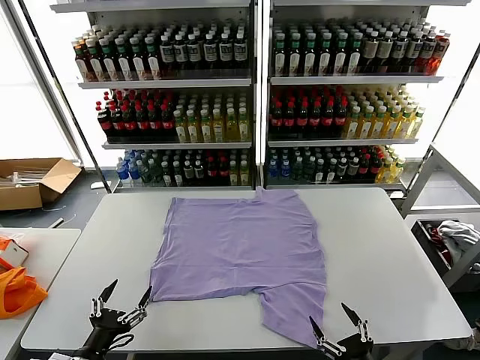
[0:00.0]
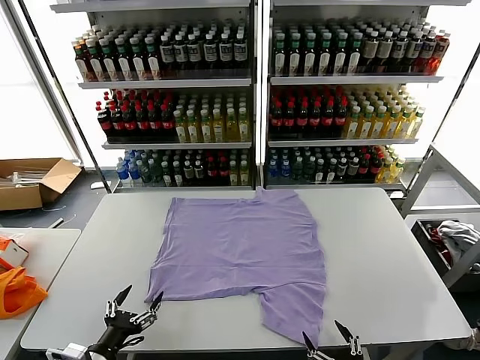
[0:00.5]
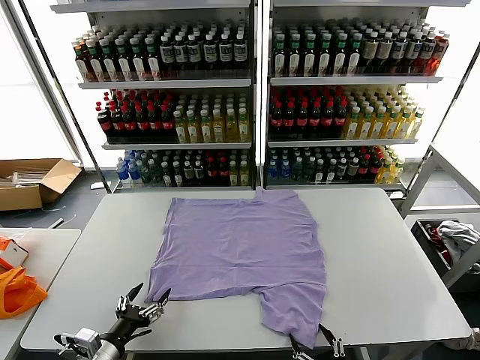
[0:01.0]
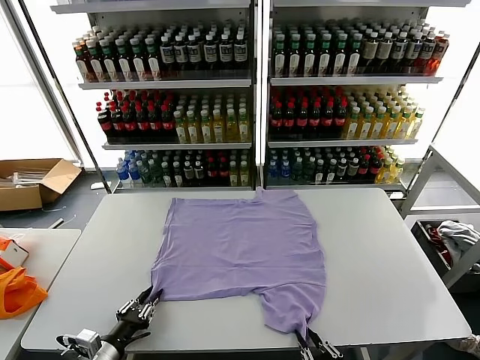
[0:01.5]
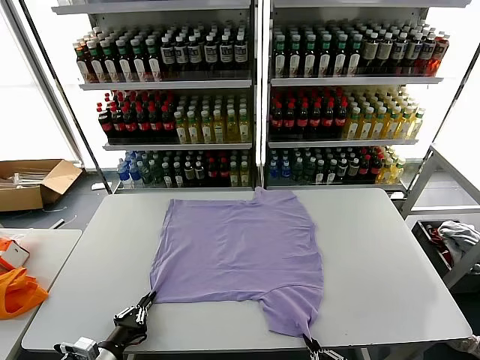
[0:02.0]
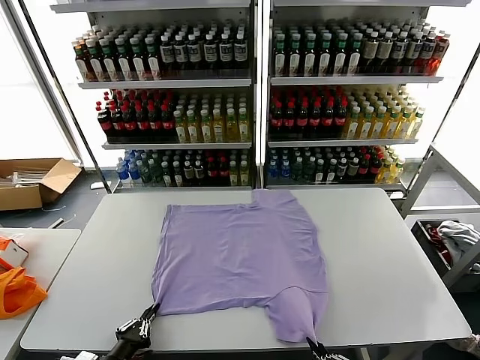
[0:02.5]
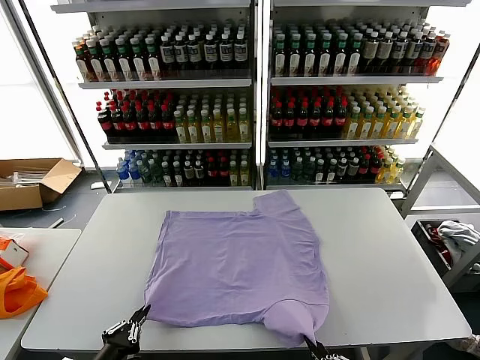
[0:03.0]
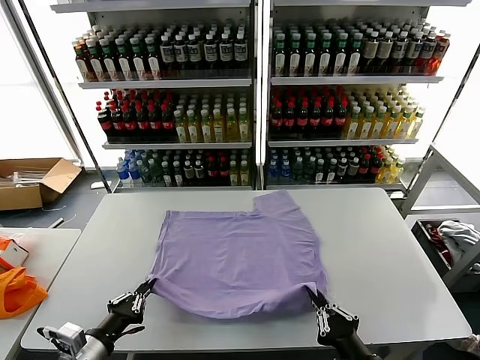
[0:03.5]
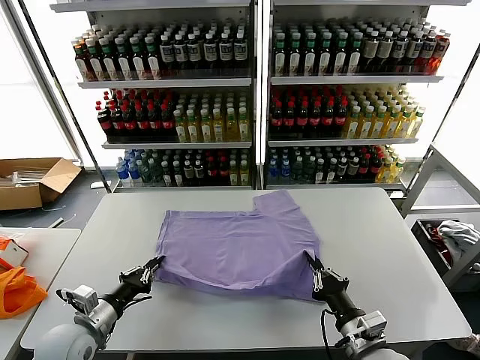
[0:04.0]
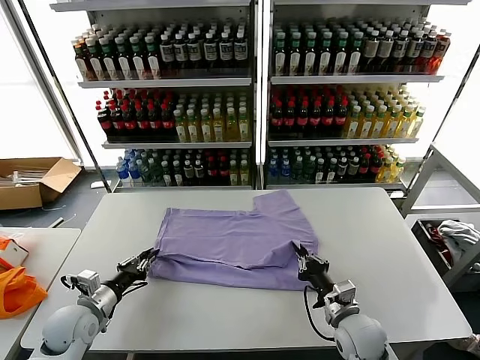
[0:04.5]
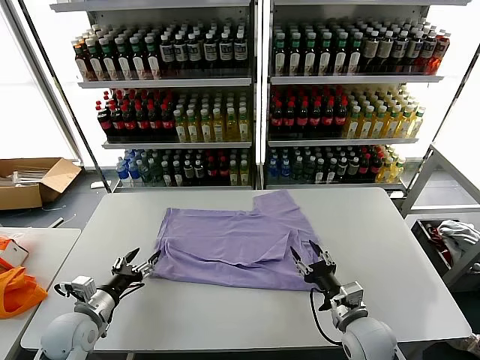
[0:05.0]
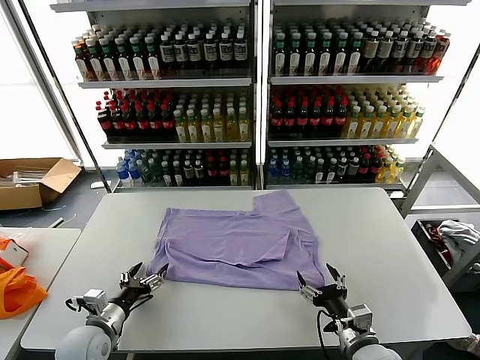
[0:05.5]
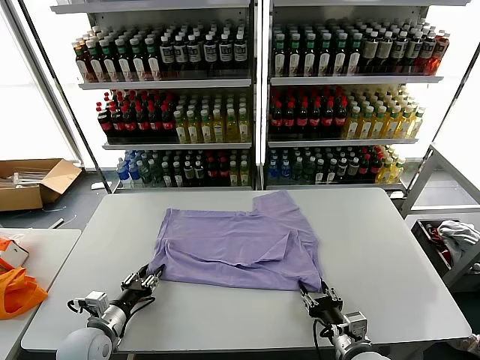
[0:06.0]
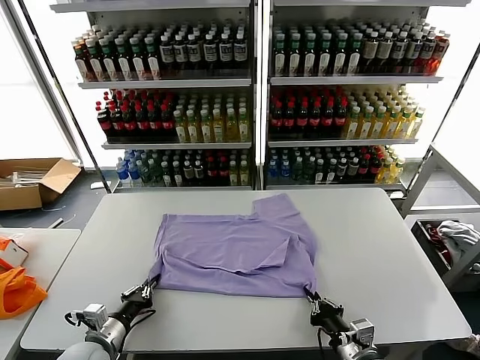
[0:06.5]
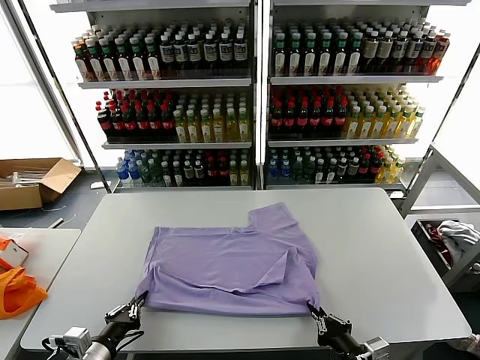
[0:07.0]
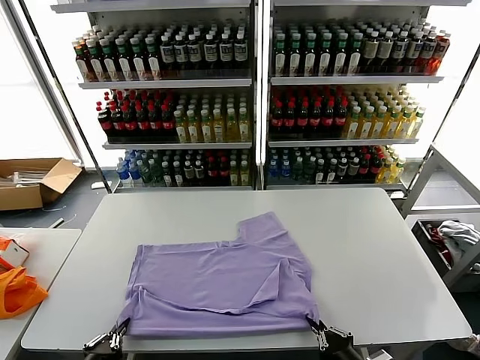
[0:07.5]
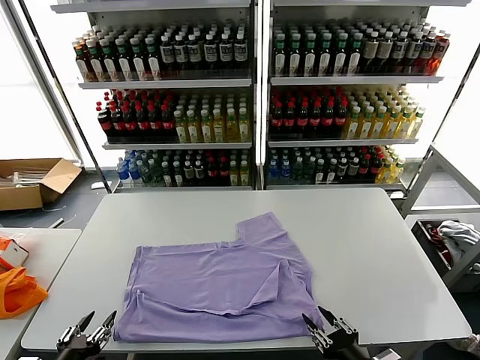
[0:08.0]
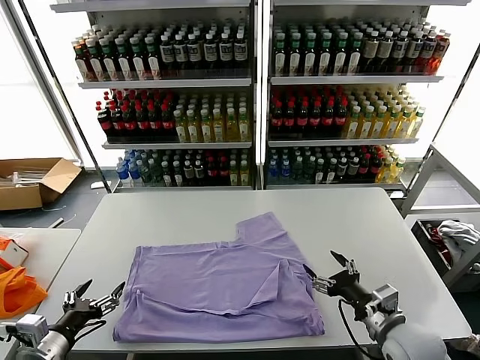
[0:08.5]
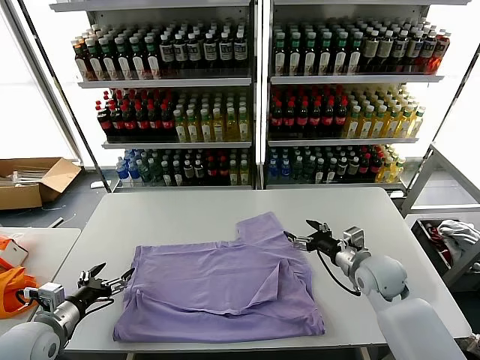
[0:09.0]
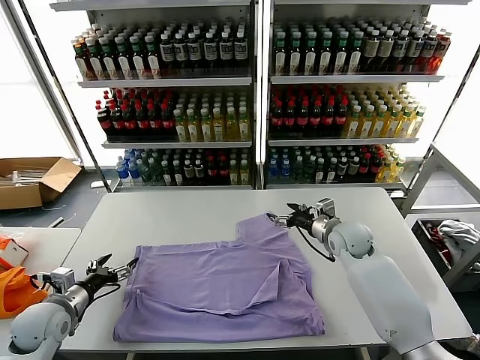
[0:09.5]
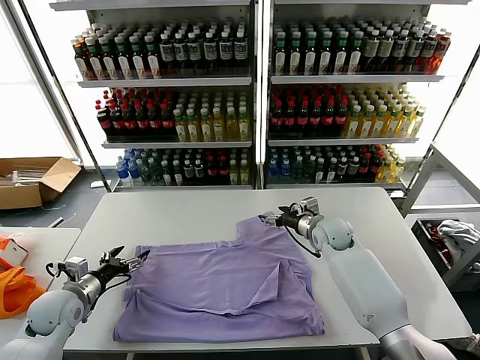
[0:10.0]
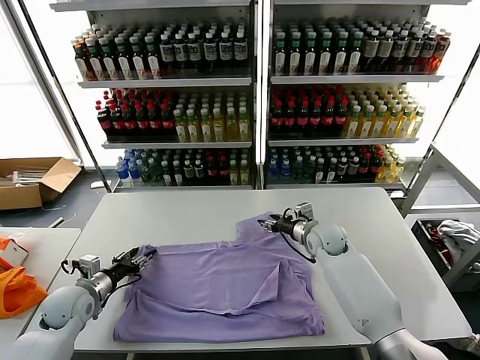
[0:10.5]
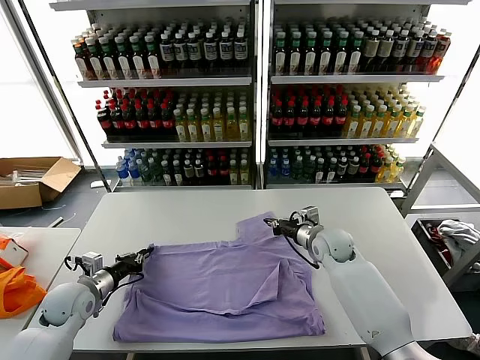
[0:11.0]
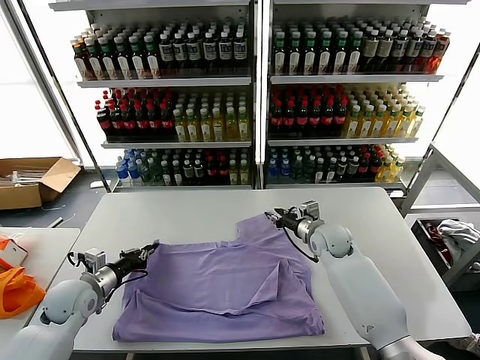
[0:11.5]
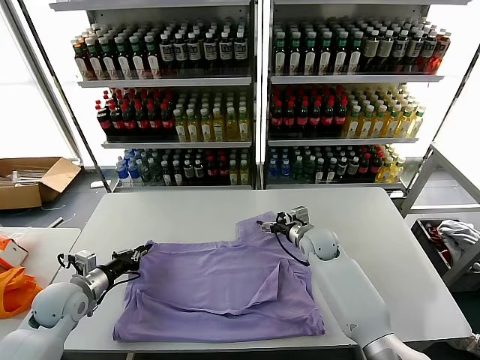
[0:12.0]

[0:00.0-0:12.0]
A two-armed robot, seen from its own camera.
Task of the whole recording: fold and organize the clothes.
Step, 0:00.0 to 0:01.5: use both grippers simultaneously to clamp the lower edge of the clothing fabric.
Step, 0:02.0 to 0:04.5: use both grippers to drag the lower edge of the fabric forward and fold it over the upper edge.
Step, 0:05.0 to 0:08.0: Drag the clothes downward with both gripper.
0:02.0 to 0:04.0: The right gripper travels forward by some 15 cm. Meanwhile the left gripper is displaced forward and upward by approximately 10 cm.
0:04.0 to 0:06.0: The right gripper goes forward and returns, roughly 5 cm each way, and opens its fingers; the left gripper is displaced downward by some 5 cm, and opens its fingers.
0:06.0 to 0:08.0: The right gripper goes some 10 cm backward and upward, and closes and opens again; the left gripper is displaced backward and upward by about 20 cm, and closes, then reopens.
0:08.0 to 0:10.0: The left gripper travels forward by about 20 cm, while the right gripper heads forward, covering about 40 cm, and opens up.
0:10.0 to 0:12.0: The left gripper closes its fingers, while the right gripper closes, then opens again.

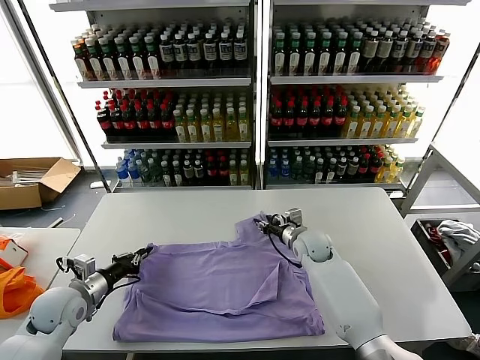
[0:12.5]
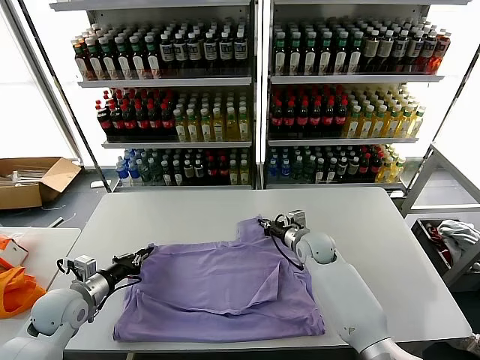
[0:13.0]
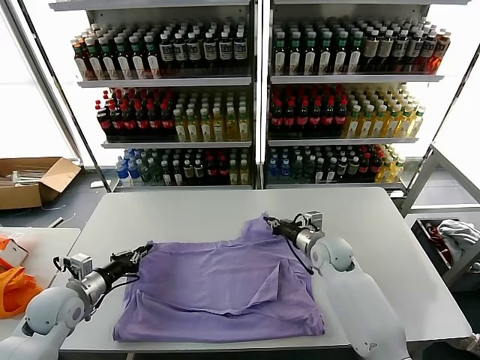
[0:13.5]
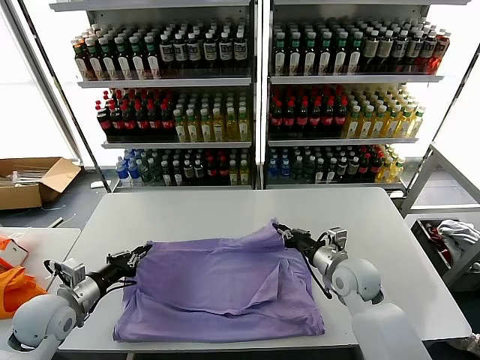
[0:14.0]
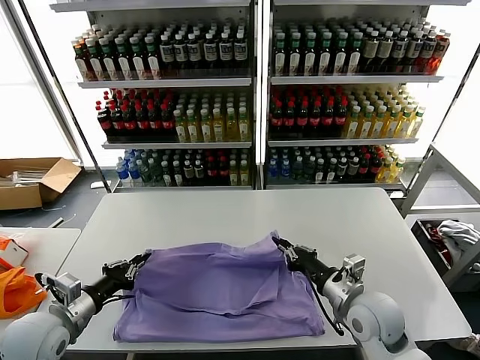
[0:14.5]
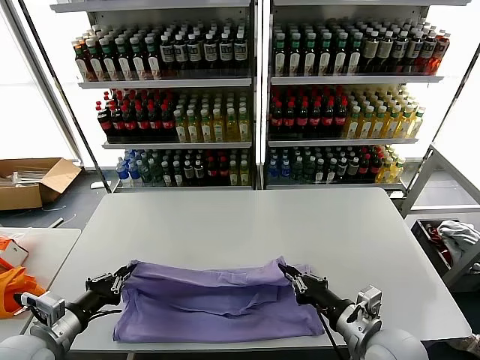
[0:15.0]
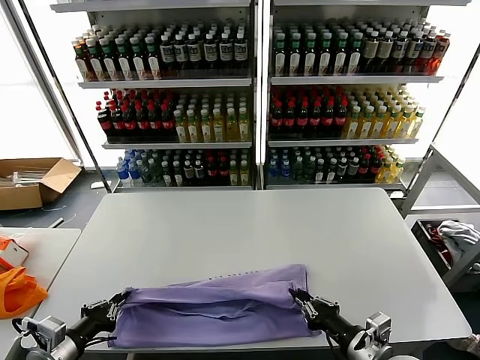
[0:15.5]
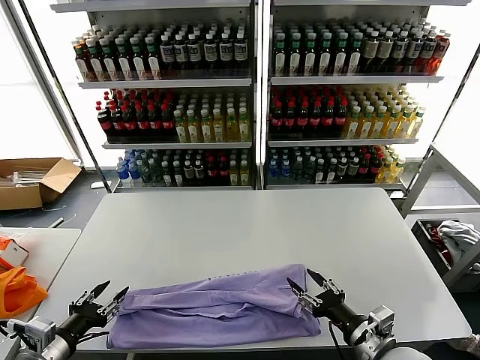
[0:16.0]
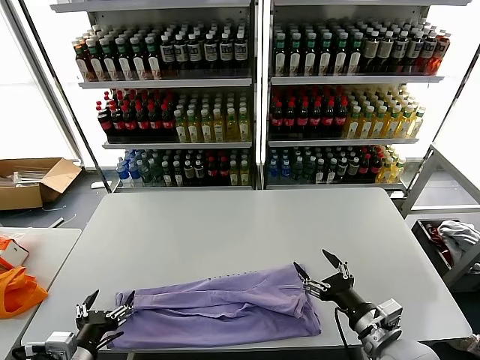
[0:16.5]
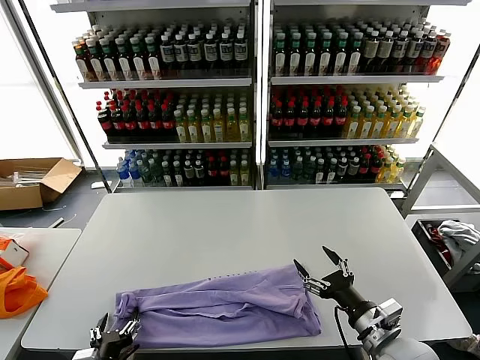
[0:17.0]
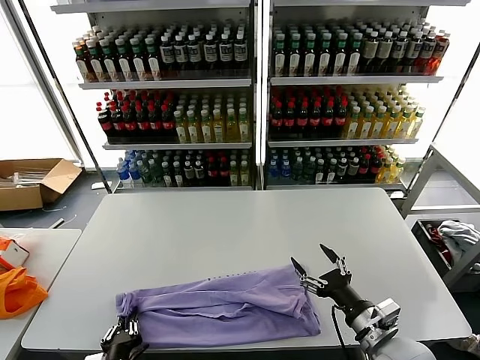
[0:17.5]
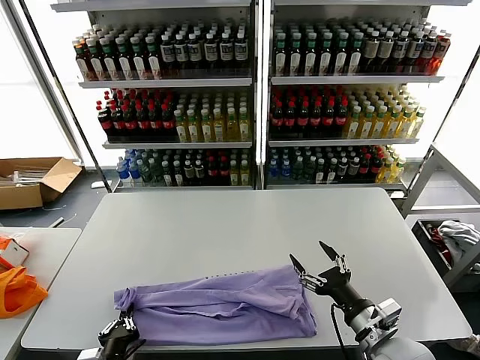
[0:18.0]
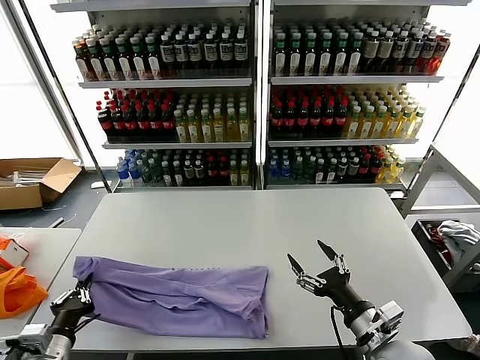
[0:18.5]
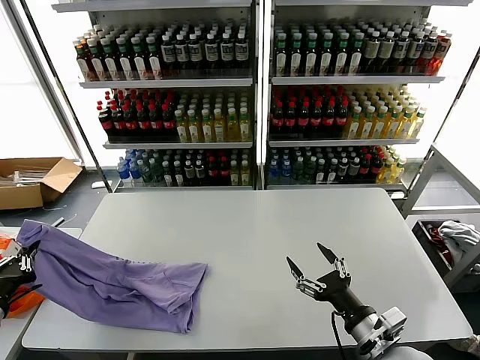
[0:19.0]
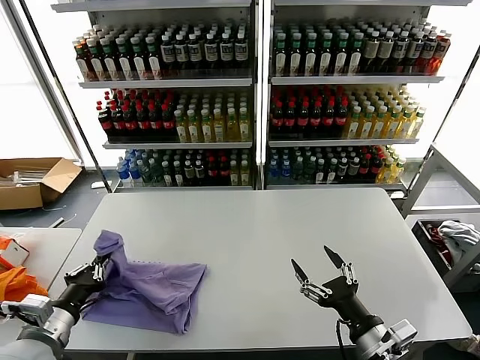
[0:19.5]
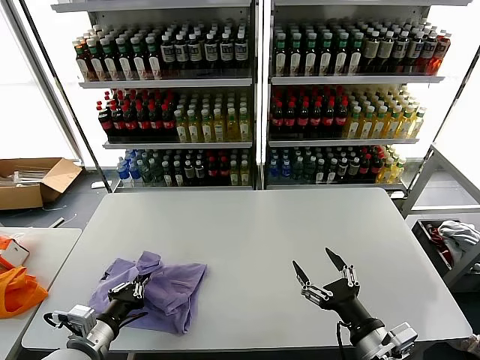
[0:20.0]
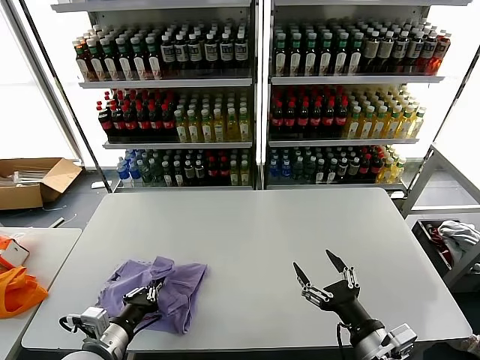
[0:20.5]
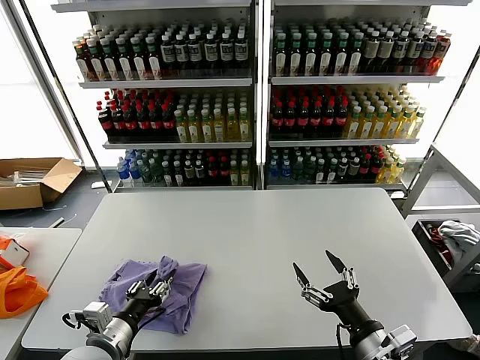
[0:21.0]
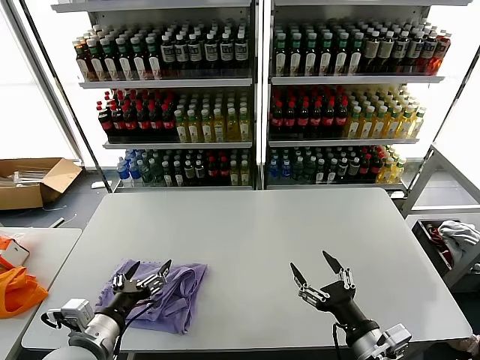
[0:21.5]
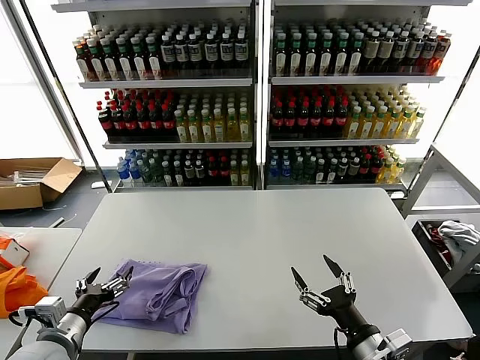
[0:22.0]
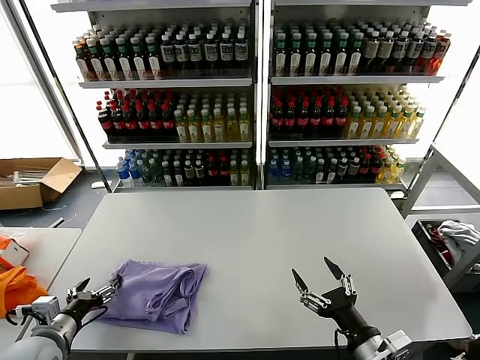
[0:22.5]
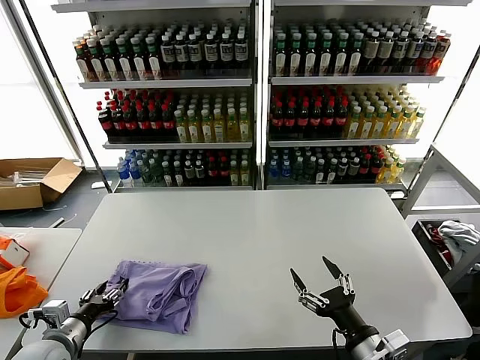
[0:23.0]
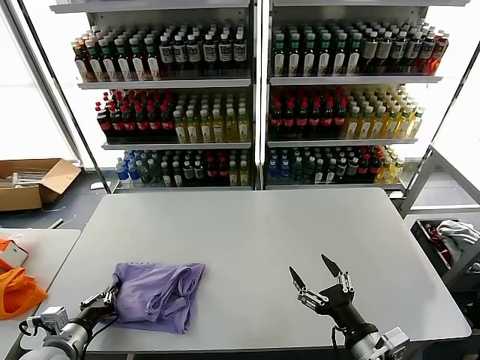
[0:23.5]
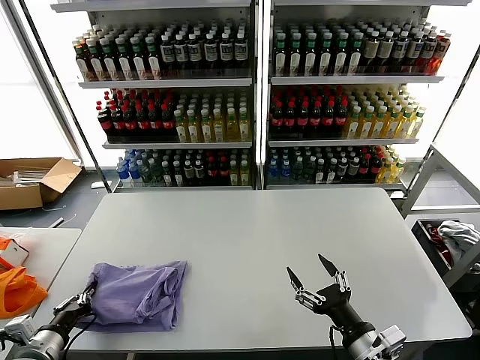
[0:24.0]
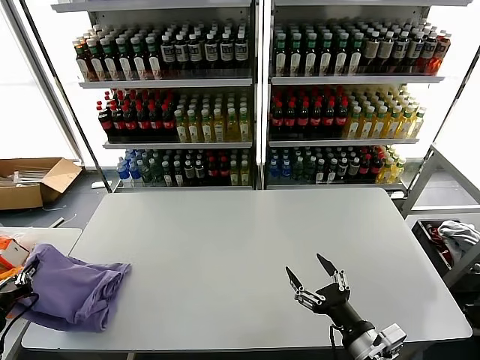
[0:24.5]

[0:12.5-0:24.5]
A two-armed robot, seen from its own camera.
Task of the whole recording: fold and organize the clothes.
Step, 0:13.5 to 0:15.5: use both grippers to drag the upper edge of the fabric backward and fold it over the lower edge.
Step, 0:16.0 to 0:17.5: use the left gripper to clamp the left edge of the fabric.
Step, 0:18.5 to 0:21.0: use the left gripper to drag the left edge of the fabric to the left and folds it over the right edge.
0:12.5 to 0:14.5: The right gripper is displaced backward by approximately 20 cm, and closes its fingers; the left gripper travels backward and upward by some 10 cm.
0:14.5 to 0:16.5: Both grippers travel together backward, roughly 10 cm. The right gripper opens. Meanwhile the left gripper opens its fingers.
0:16.5 to 0:18.5: The left gripper goes to the right and returns, about 5 cm each way, and closes up.
0:18.5 to 0:20.5: The left gripper is displaced to the right by about 5 cm.
0:20.5 to 0:22.5: The left gripper heads to the left, covering approximately 10 cm, and opens.
0:22.5 to 0:24.5: The left gripper goes about 10 cm to the left and upward, and closes its fingers.

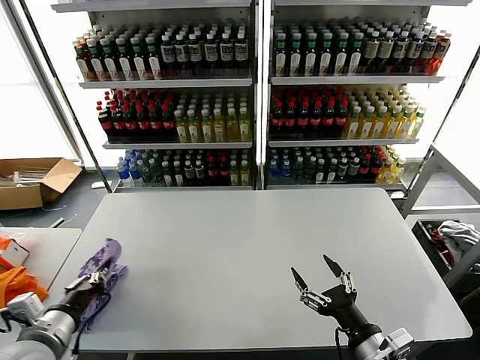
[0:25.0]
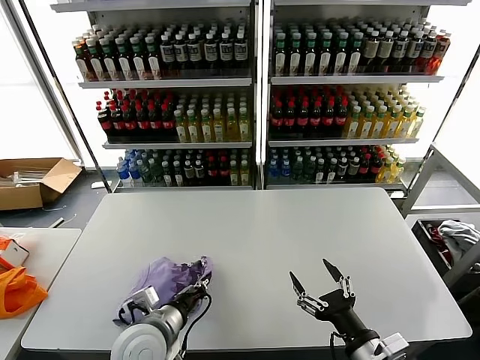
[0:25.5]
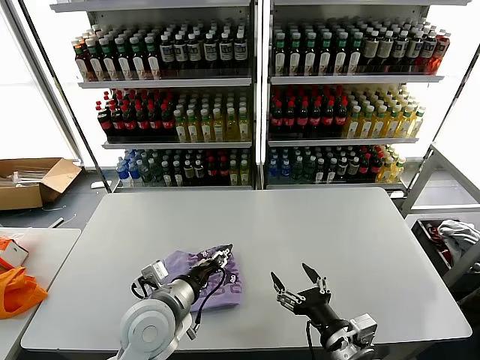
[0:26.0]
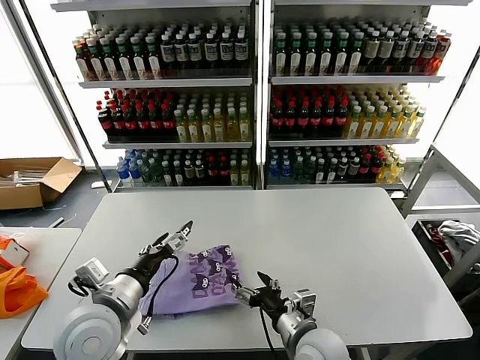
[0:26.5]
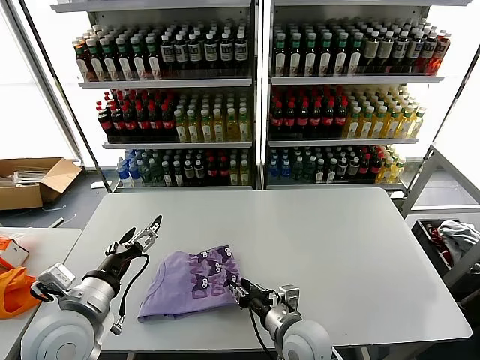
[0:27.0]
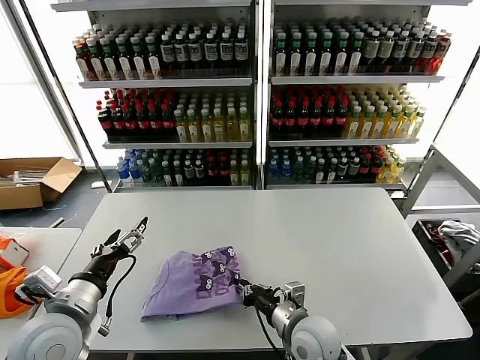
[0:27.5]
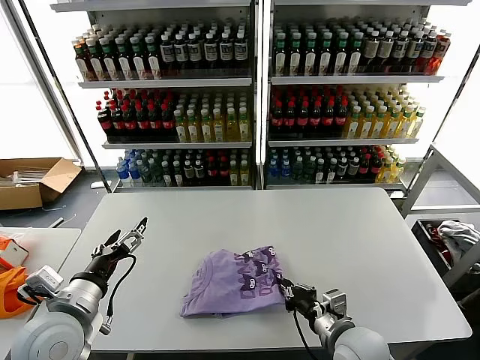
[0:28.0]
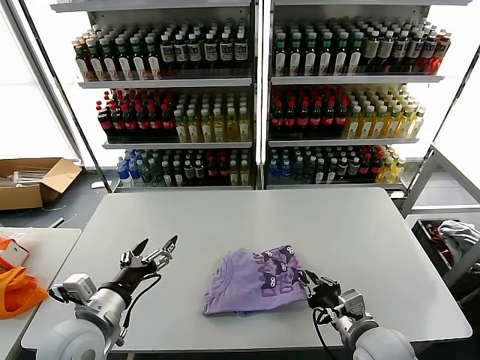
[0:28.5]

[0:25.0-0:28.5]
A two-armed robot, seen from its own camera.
Task of the whole recording: fold and organize the clothes.
0:25.0 to 0:27.0: The left gripper heads to the right, covering roughly 10 cm, and opens its fingers, while the right gripper goes roughly 20 cm to the left, forward and downward, and closes up.
0:27.0 to 0:28.5: The right gripper heads to the right, covering about 10 cm, and closes its fingers.
